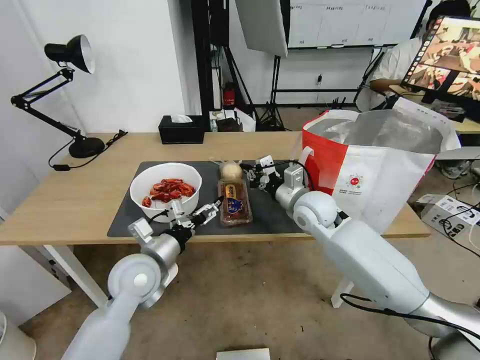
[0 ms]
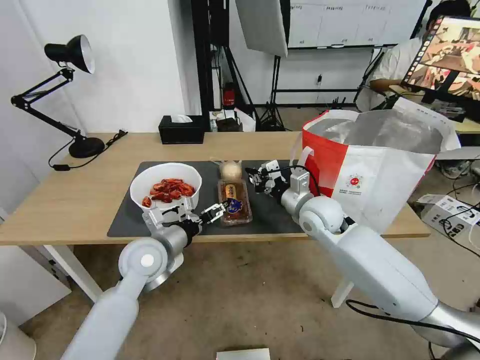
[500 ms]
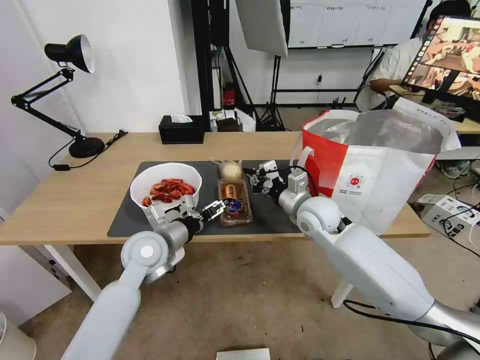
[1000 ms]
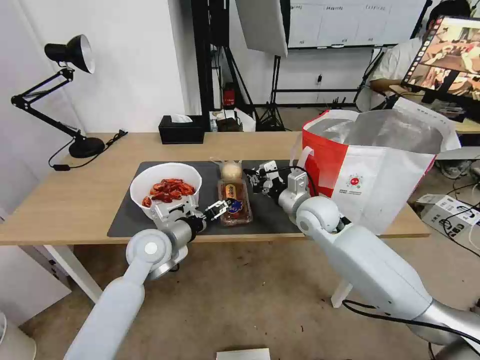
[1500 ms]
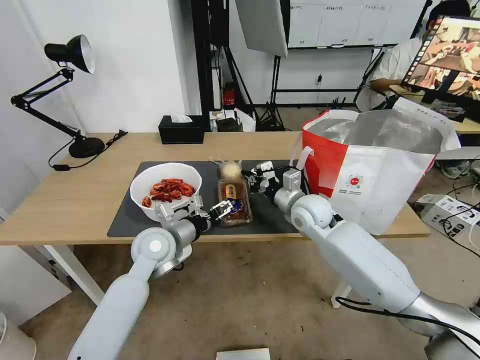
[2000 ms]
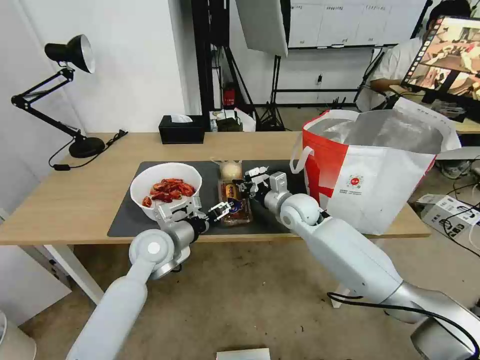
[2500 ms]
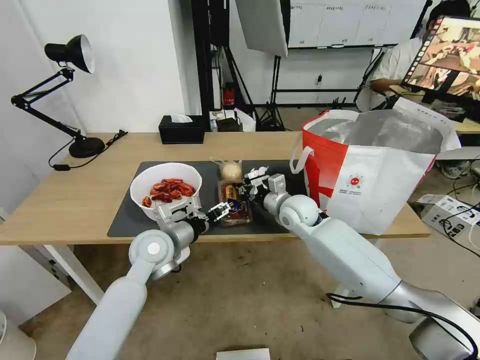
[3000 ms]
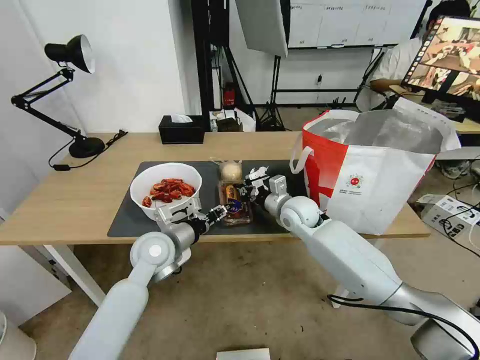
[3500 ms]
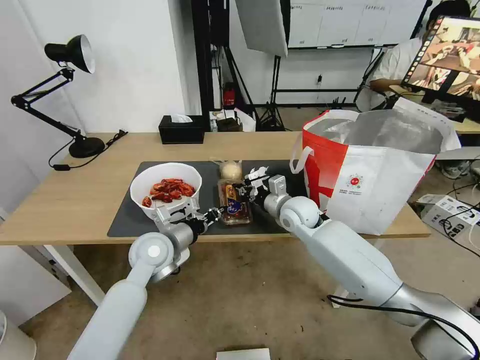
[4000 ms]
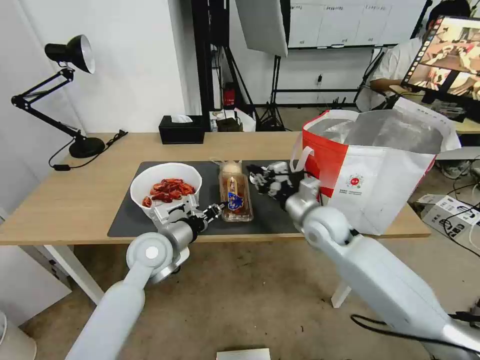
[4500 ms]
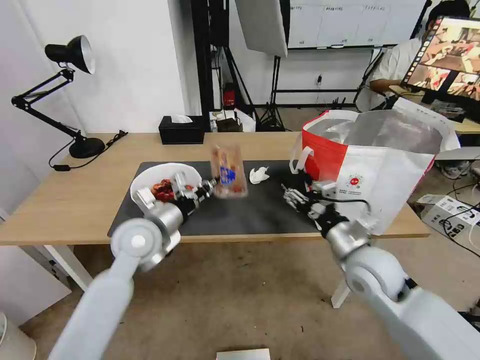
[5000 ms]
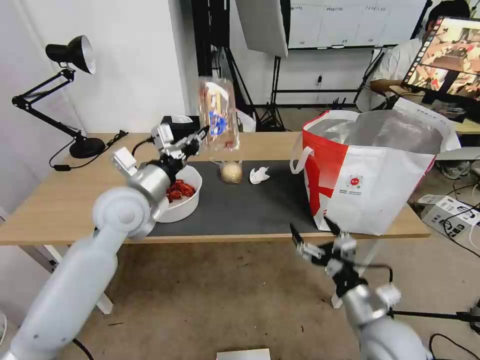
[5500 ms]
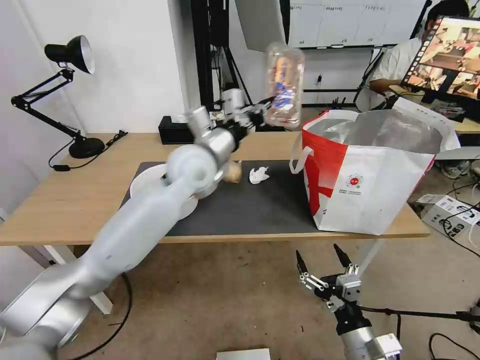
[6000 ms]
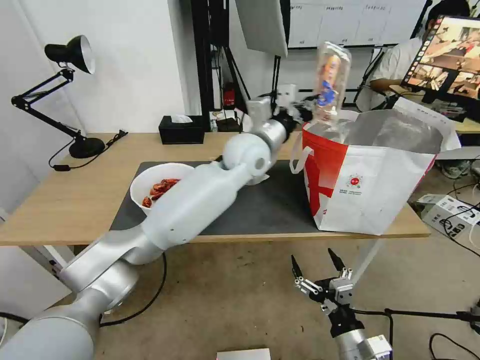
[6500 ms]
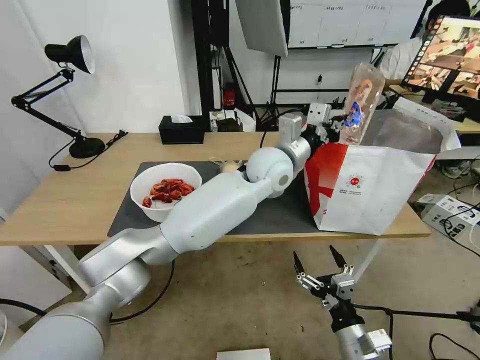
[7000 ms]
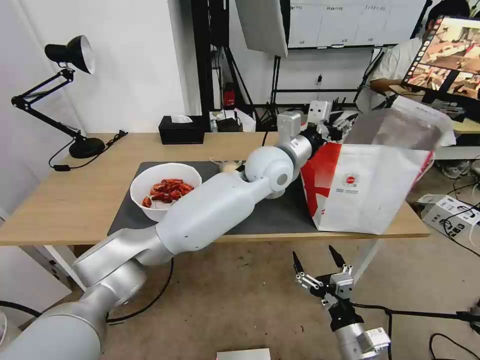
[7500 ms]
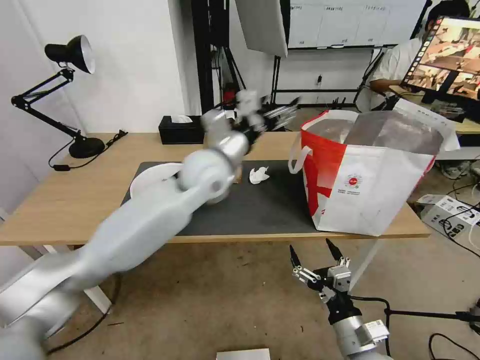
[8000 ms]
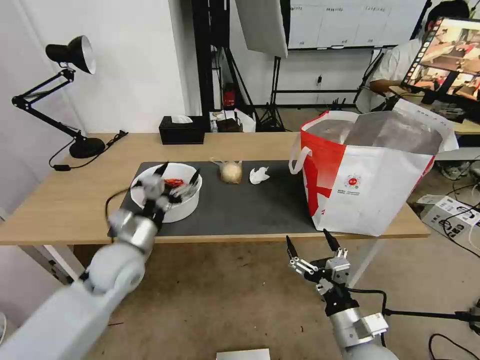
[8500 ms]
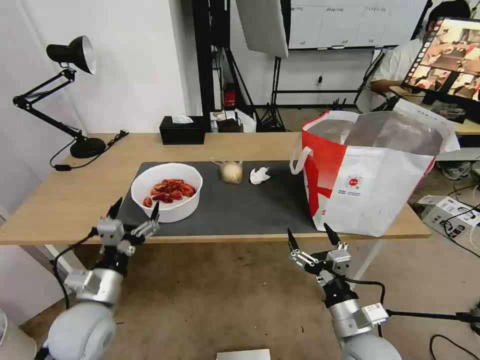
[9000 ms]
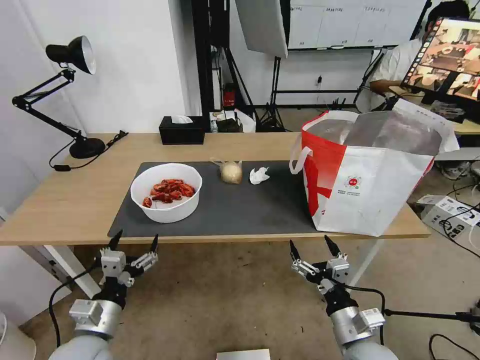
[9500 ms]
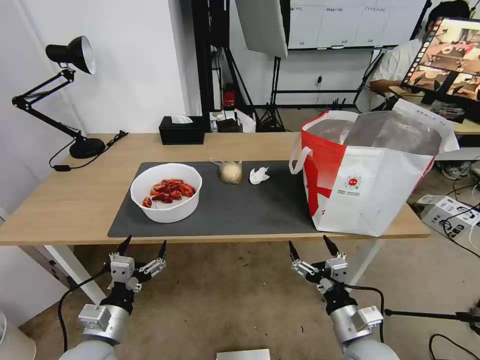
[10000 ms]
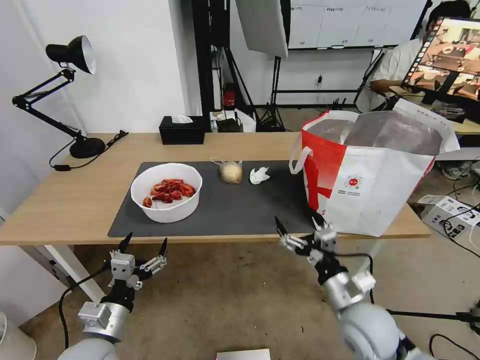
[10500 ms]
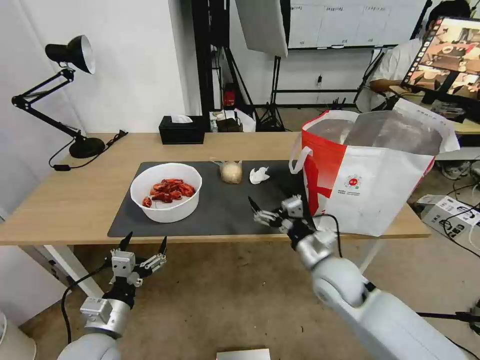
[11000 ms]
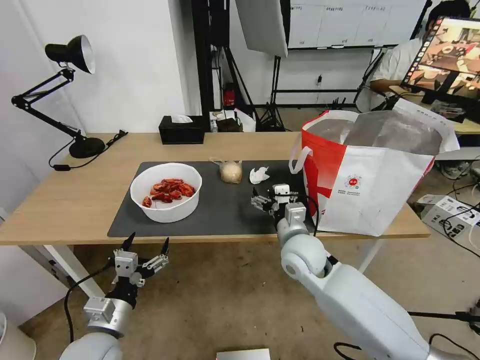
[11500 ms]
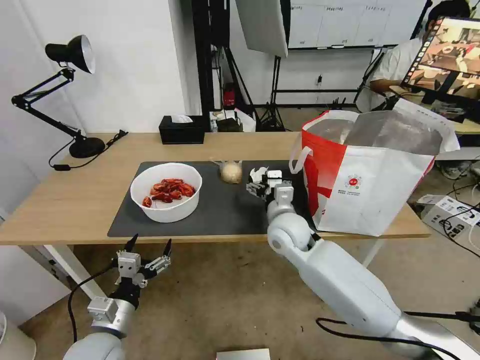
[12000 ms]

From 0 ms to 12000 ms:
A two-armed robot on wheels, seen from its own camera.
Task of the whole recording: Pick up the trash from the table and place it into the takeout bag.
From 0 ms to 2000 ms: The left gripper shifts some 5 cm forward.
From 2000 ms to 4000 ms: The left gripper closes its fingers.
From 4000 ms to 6000 ms: The right gripper moves backward, about 35 cm, and opens its fingers; the left gripper moves upward, to the right and forward, some 20 cm.
From 6000 ms to 8000 ms: The left gripper goes to the right and returns, some 15 cm each way, and opens its fingers.
From 8000 ms to 10000 ms: The left gripper is displaced backward, downward and to the left by about 40 cm.
From 10000 ms to 12000 ms: The right gripper travels forward, to the left and upward by about 30 cm.

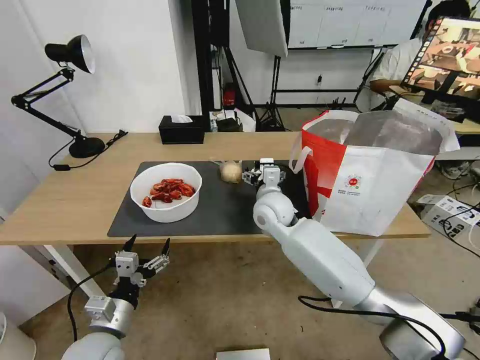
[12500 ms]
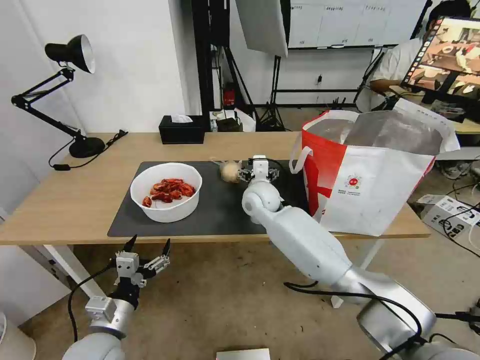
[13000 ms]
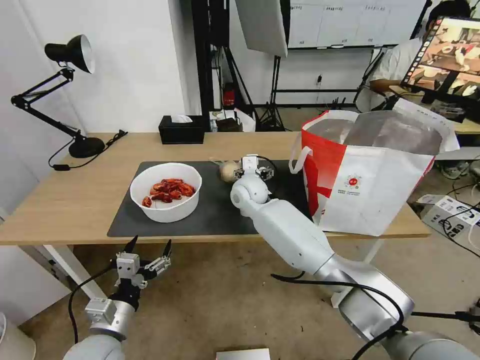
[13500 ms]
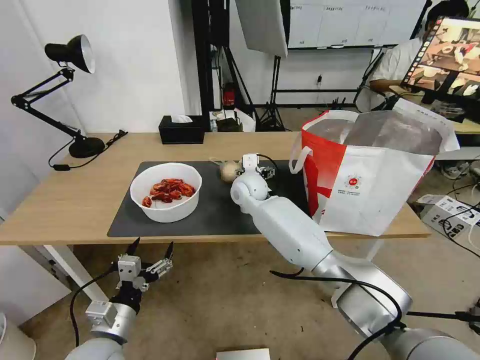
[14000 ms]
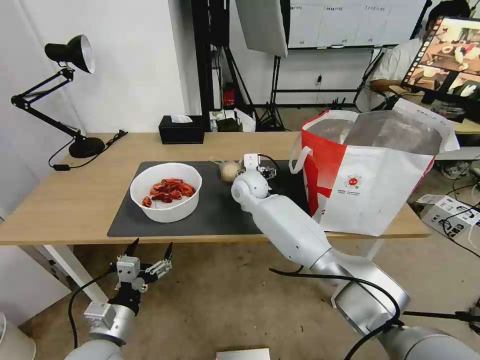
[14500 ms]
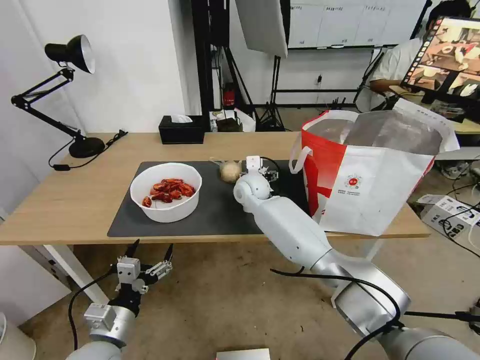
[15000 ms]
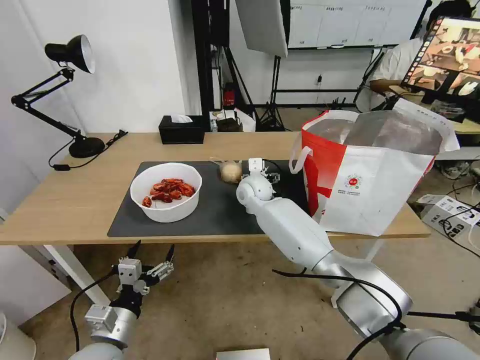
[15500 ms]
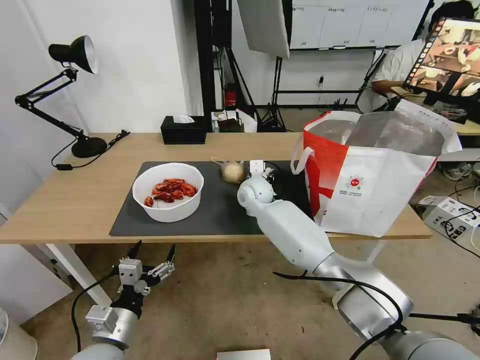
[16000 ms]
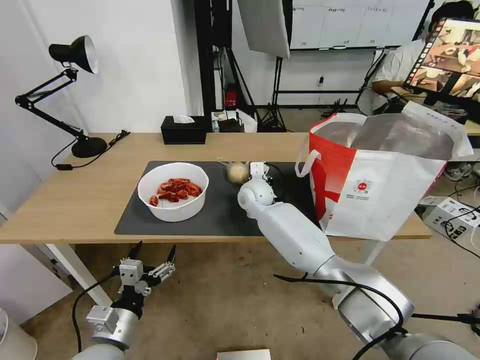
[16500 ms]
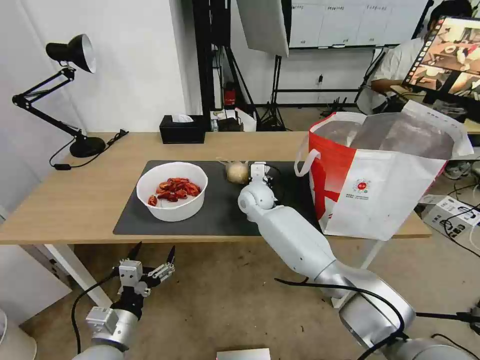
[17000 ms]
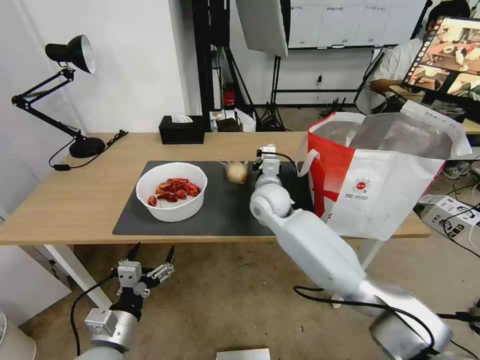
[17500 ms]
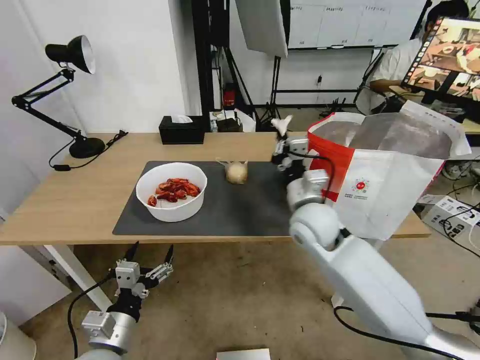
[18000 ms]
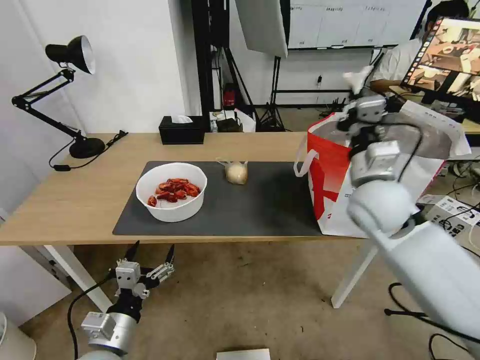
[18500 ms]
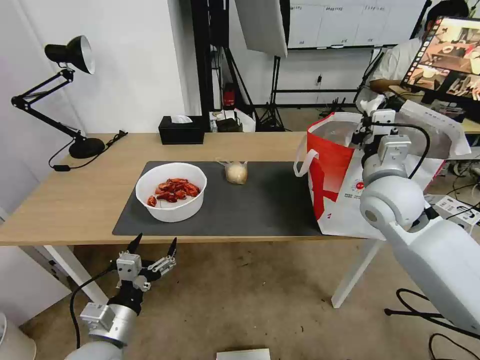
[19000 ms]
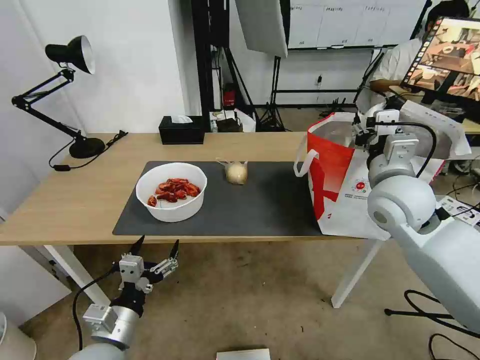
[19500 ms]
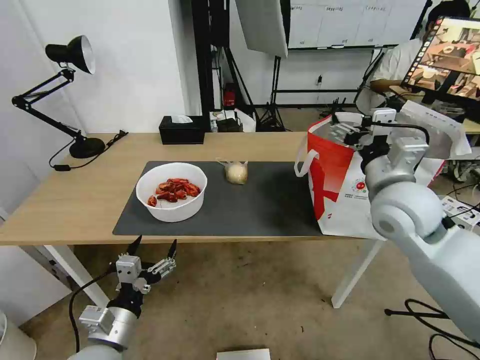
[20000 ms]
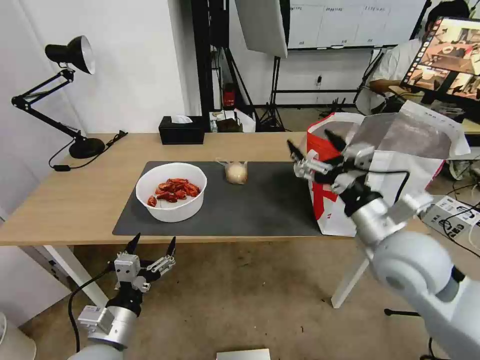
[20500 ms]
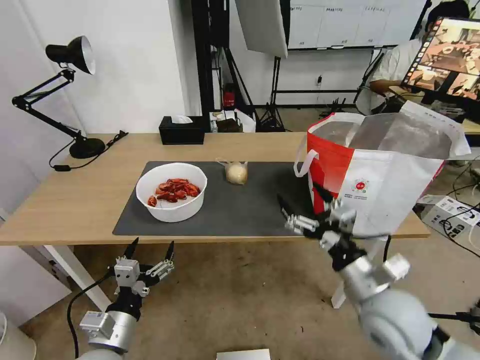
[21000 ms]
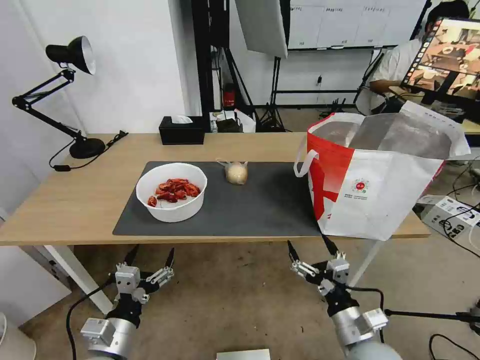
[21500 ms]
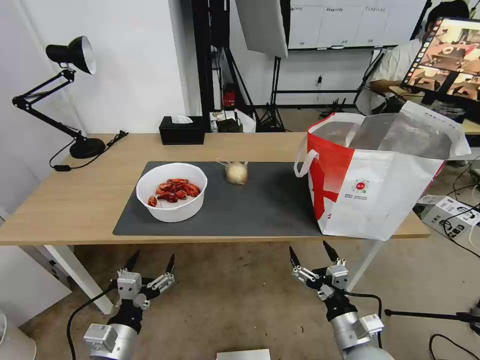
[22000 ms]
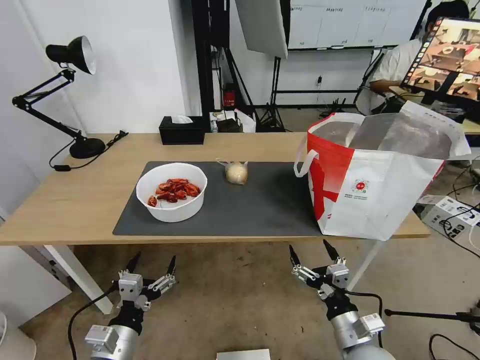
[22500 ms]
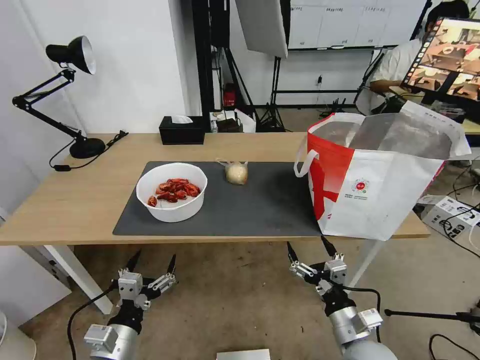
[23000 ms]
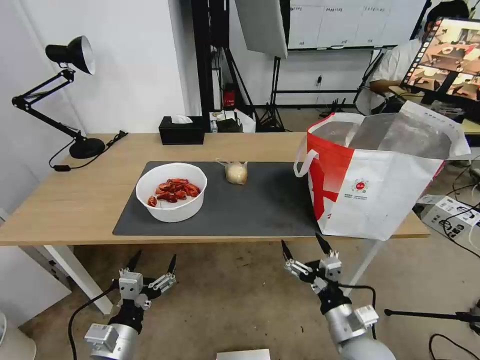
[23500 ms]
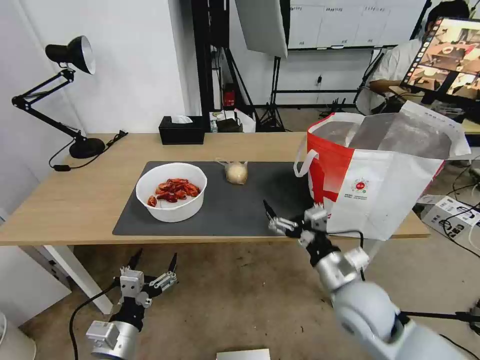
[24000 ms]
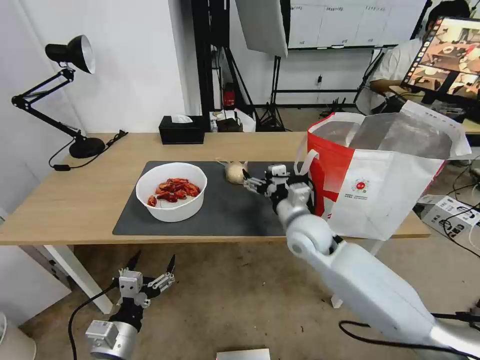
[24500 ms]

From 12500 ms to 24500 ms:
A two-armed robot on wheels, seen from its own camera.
Task of the whole recording: Pick up the trash from the table and place it into the takeout bag.
From 12500 ms to 14500 ms: The right gripper heads forward and to the left, covering some 10 cm.
From 14500 ms to 16500 ms: The right gripper closes its fingers.
From 16500 ms to 18500 ms: The right gripper travels to the right, backward and upward by approximately 30 cm.
From 18500 ms to 20500 ms: The right gripper goes approximately 10 cm backward, and opens its fingers.
From 20500 ms to 22500 ms: The right gripper travels downward and backward by roughly 25 cm.
From 22500 ms to 24500 ms: The right gripper heads forward, upward and to the left, covering approximately 30 cm.

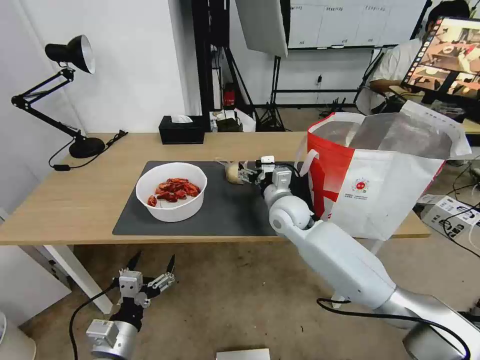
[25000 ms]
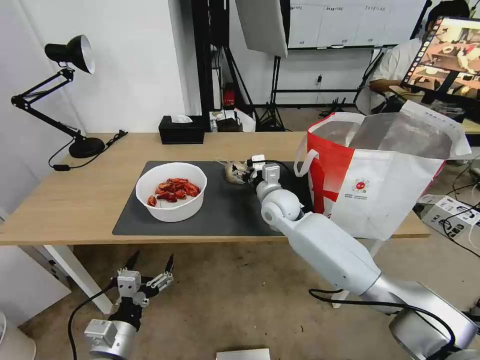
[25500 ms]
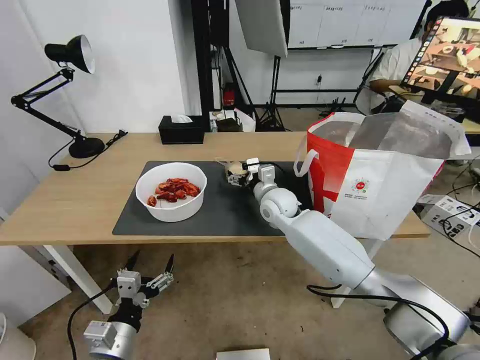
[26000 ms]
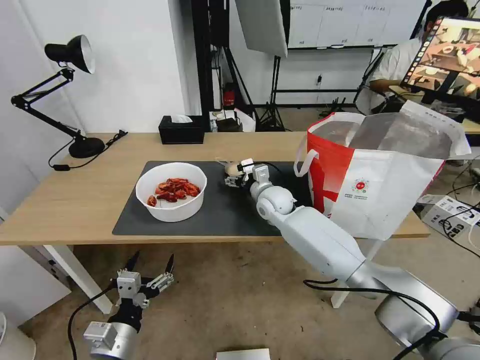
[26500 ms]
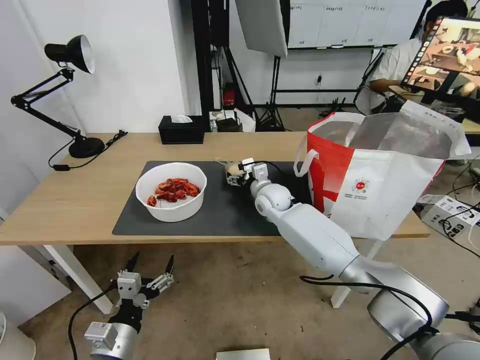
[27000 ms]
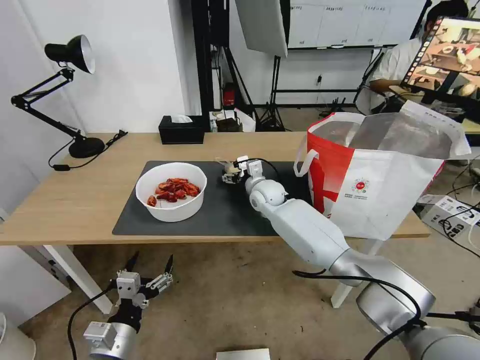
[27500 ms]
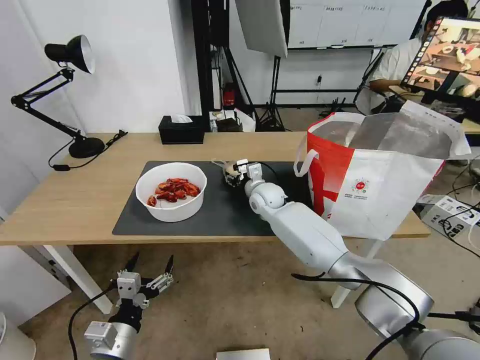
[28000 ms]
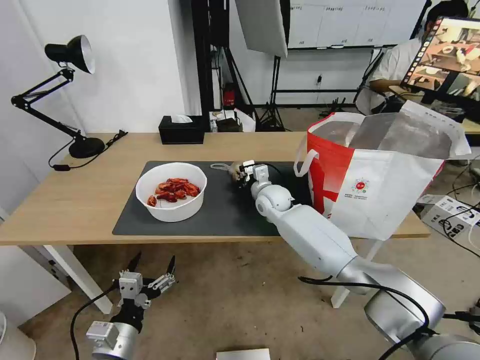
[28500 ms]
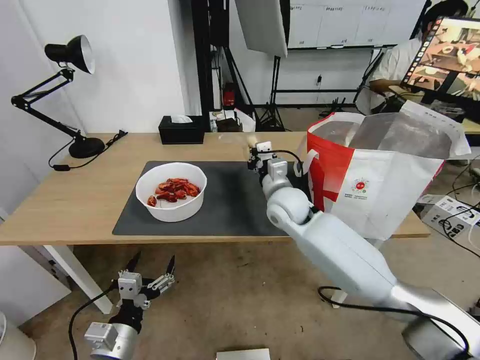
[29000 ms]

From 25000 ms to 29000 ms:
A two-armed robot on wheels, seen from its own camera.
Task of the whole recording: Pick up the trash from the table and place it into the takeout bag.
From 25000 ms to 27000 ms: The right gripper shifts roughly 10 cm forward.
From 27000 ms to 29000 ms: The right gripper shifts some 10 cm backward and upward, and closes up.
